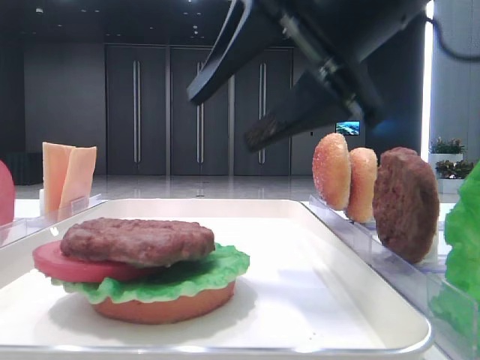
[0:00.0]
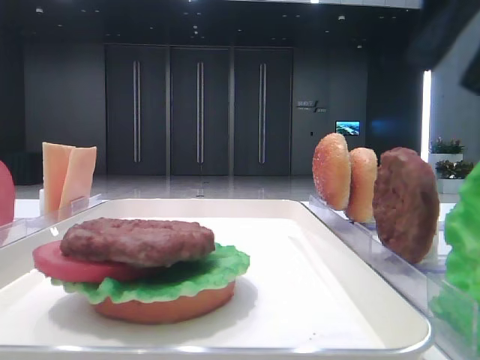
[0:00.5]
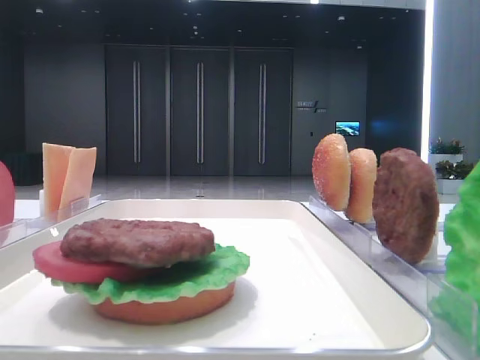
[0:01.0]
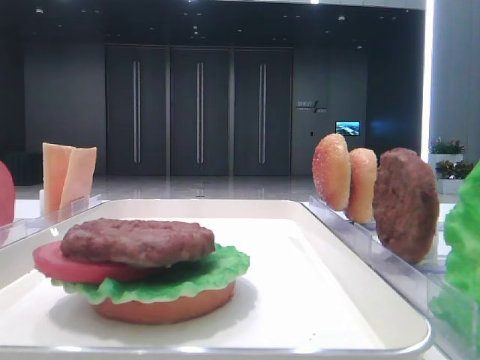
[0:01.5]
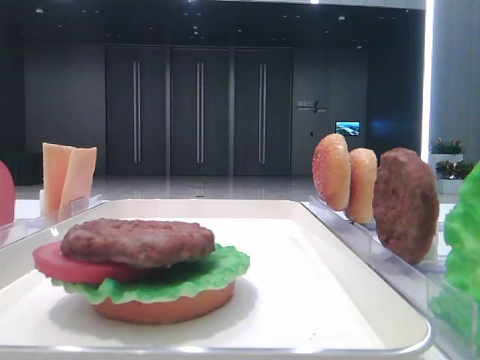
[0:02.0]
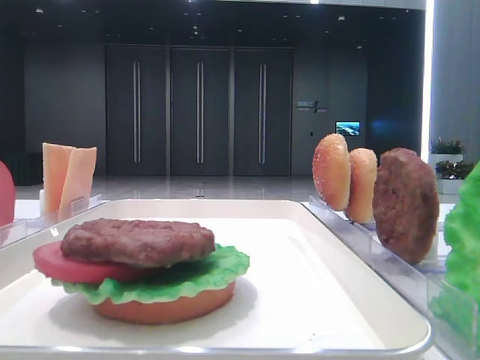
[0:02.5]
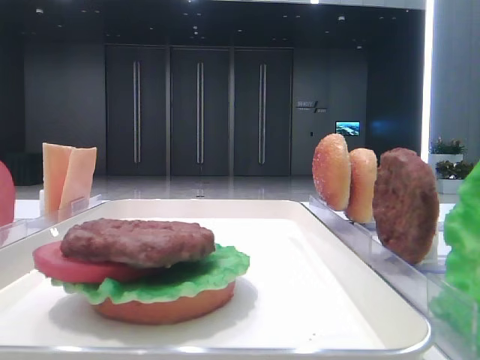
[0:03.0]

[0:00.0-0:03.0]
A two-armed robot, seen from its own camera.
0:00.0 to 0:01.5: The right gripper heads backward, to the right and upward, covering some 30 cm.

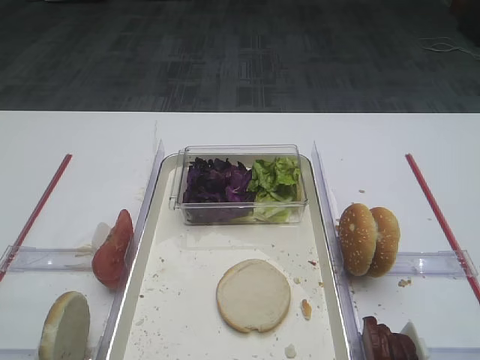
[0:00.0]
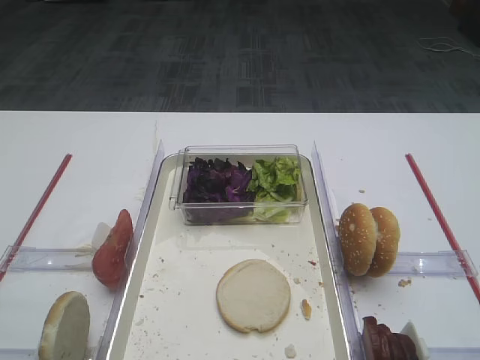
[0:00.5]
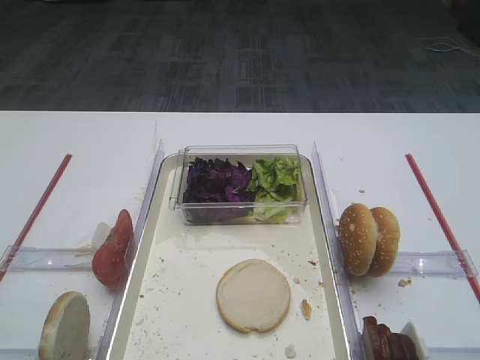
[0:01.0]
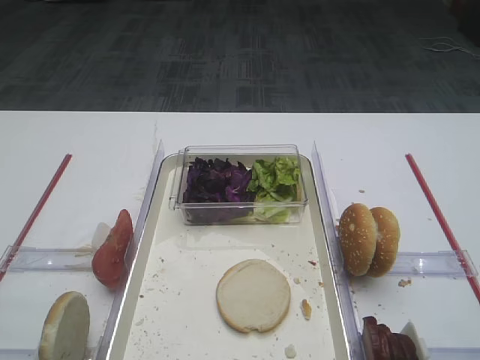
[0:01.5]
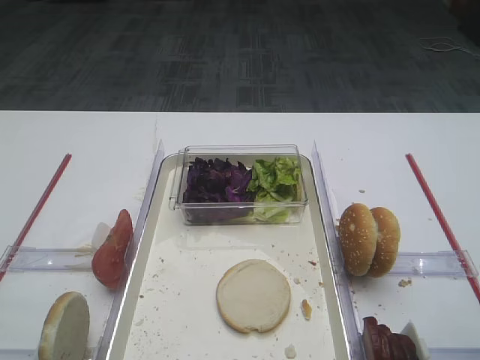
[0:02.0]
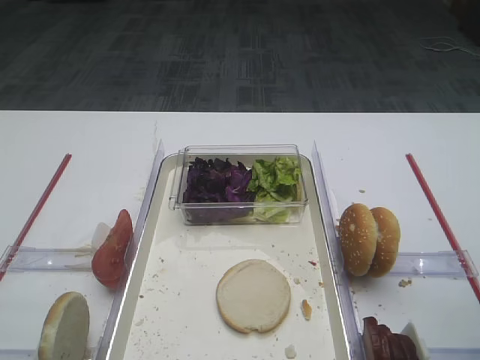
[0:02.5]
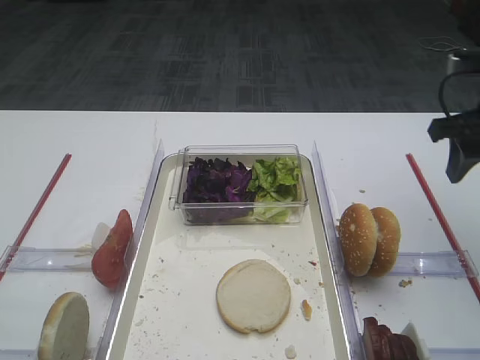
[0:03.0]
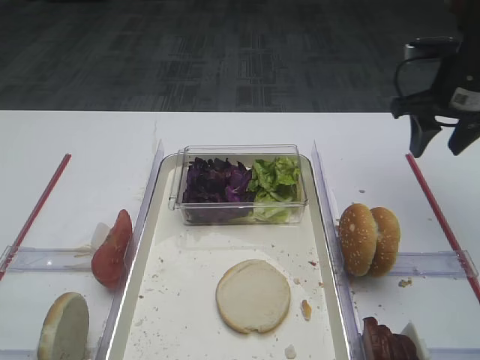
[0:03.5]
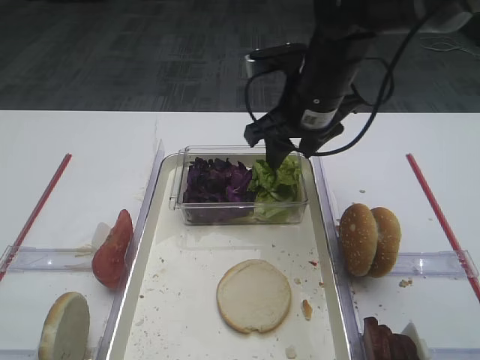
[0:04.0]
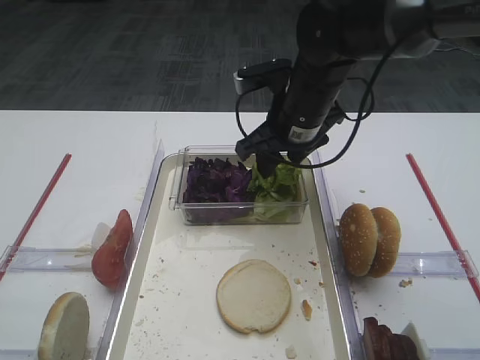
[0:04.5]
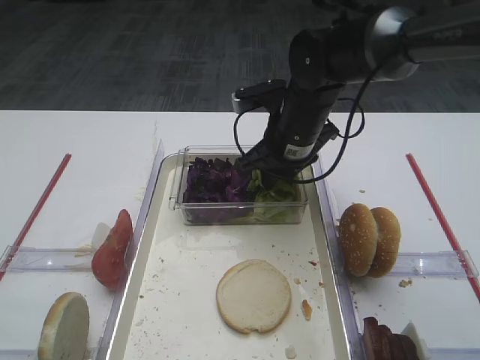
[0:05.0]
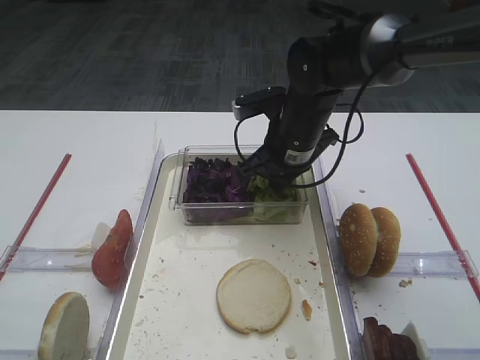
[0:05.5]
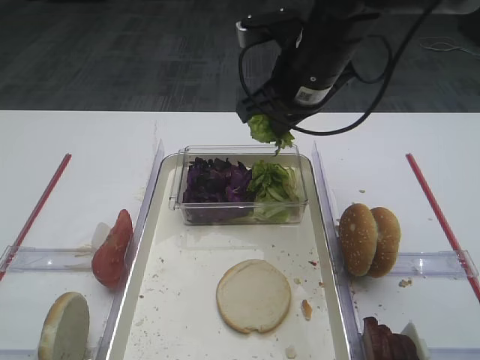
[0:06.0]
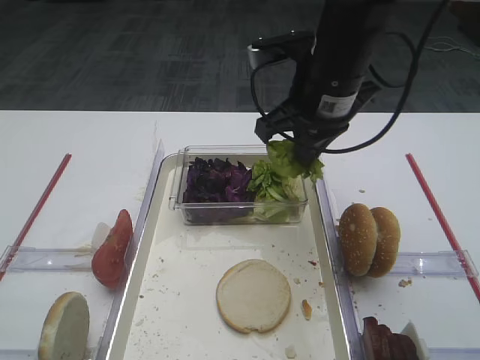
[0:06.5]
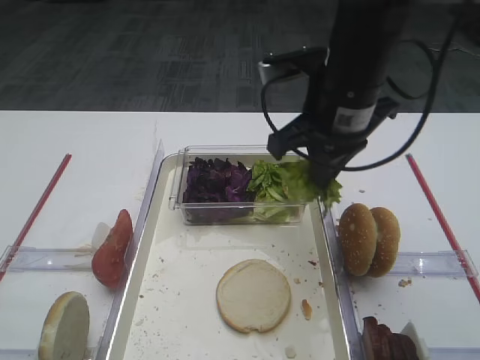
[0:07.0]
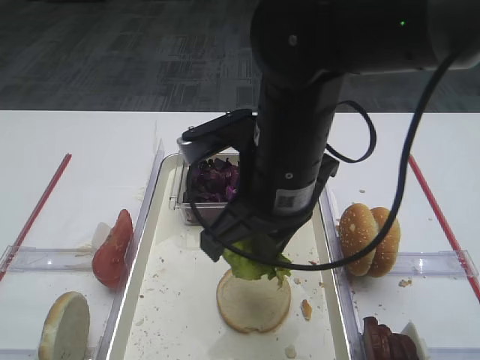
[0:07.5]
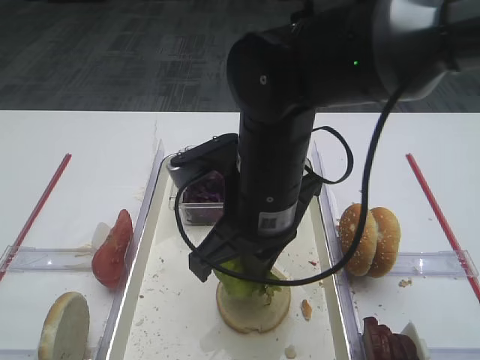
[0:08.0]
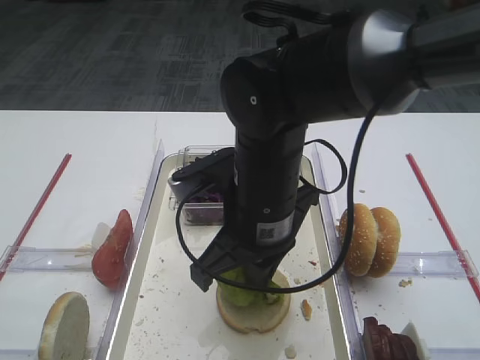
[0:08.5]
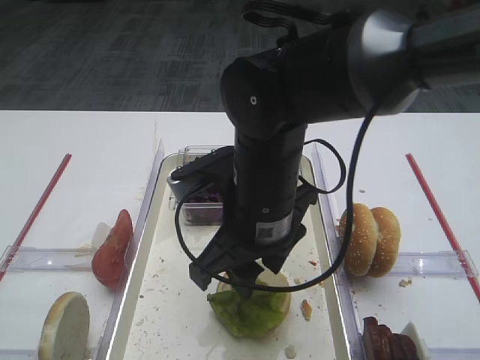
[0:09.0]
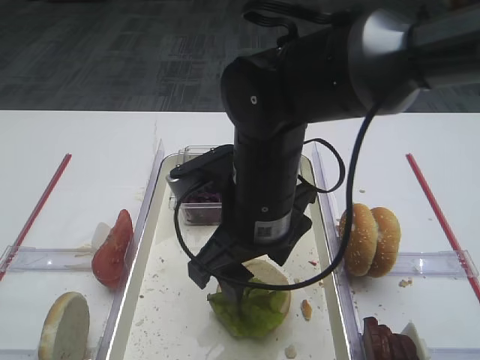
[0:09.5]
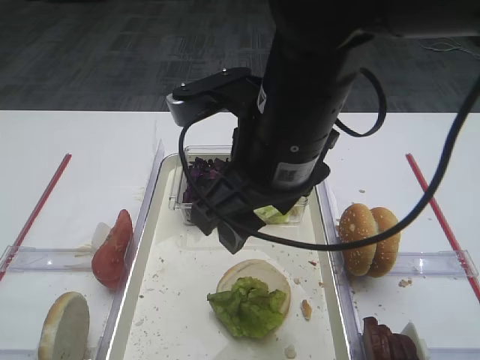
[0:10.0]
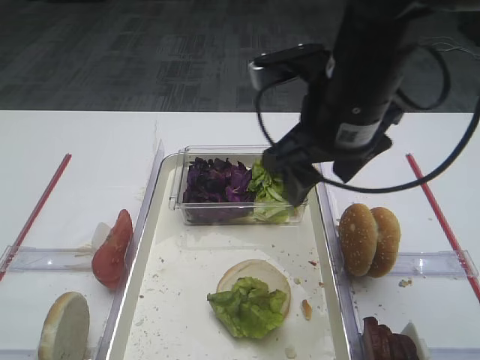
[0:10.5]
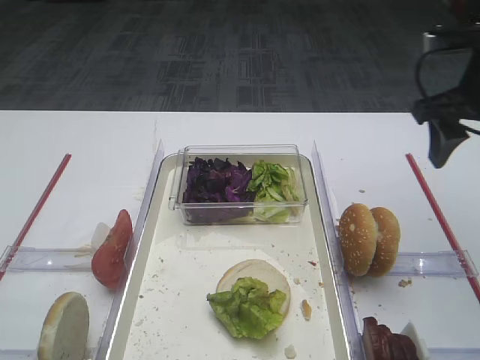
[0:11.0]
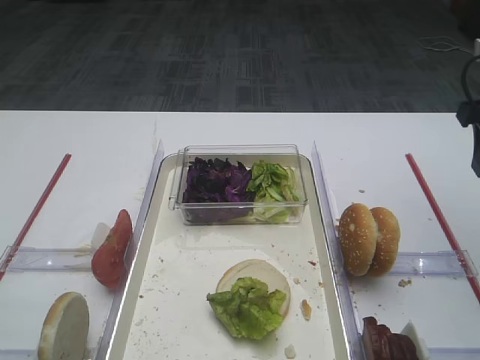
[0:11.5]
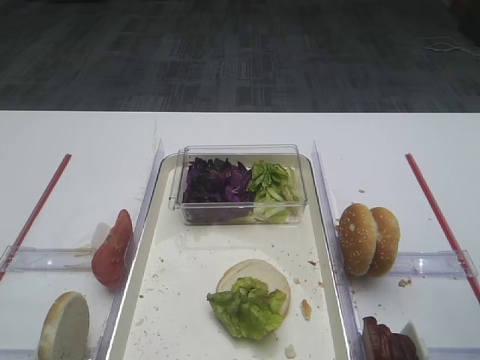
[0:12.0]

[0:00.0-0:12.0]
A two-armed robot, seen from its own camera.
Step, 0:00.0 to 0:06.0: Pick up the lettuce leaf with the right gripper.
Step, 0:07.0 to 0:09.5: Place the lettuce leaf on the bread slice with the right gripper.
0:02.0 to 0:04.0: The right gripper goes roughly 30 cm forward and to the left.
0:04.0 to 0:06.0: The right gripper travels downward and back again, some 5 cm each way, and closes its fingers.
0:06.0 to 0:08.0: The right gripper is displaced backward and to the left by approximately 15 cm.
0:08.0 to 0:10.0: The right gripper is displaced upward by some 5 cm, and opens its fingers.
0:10.0 to 0:12.0: The right gripper shifts approximately 25 cm to the right.

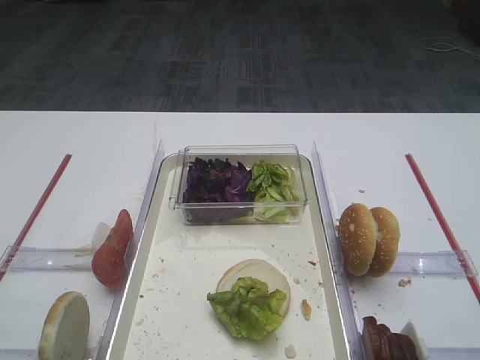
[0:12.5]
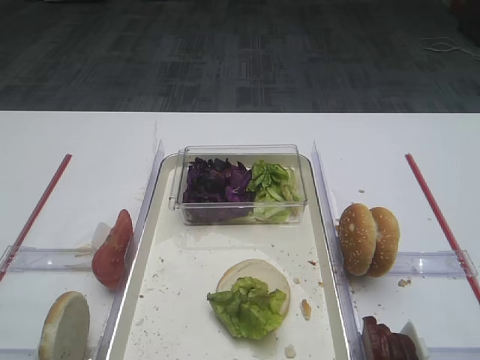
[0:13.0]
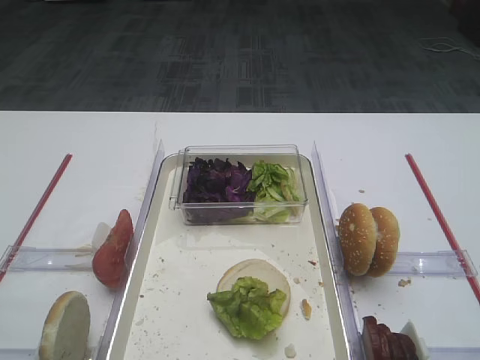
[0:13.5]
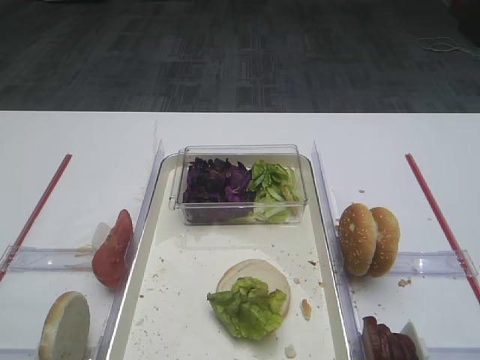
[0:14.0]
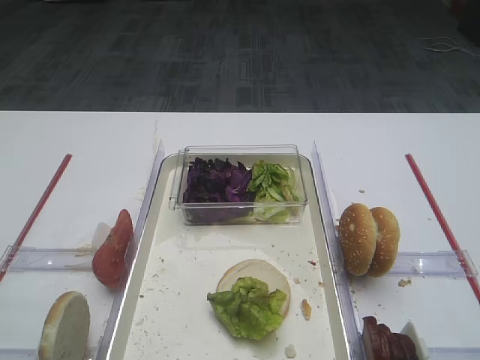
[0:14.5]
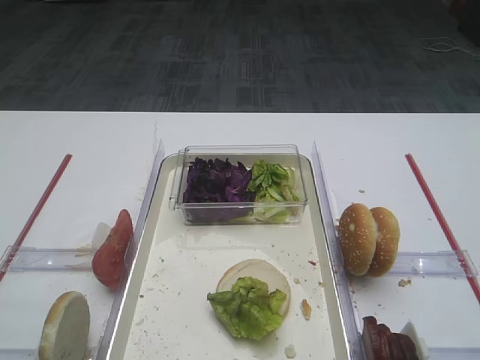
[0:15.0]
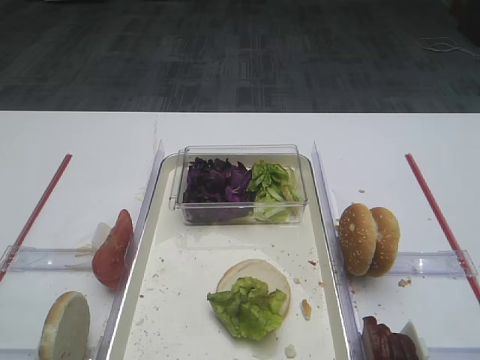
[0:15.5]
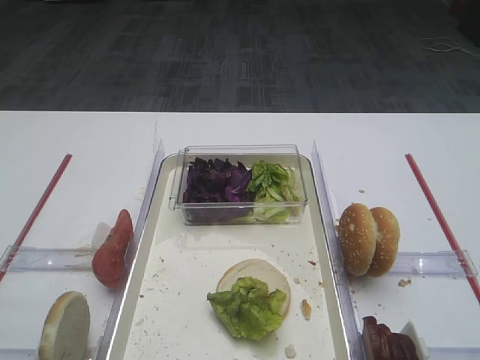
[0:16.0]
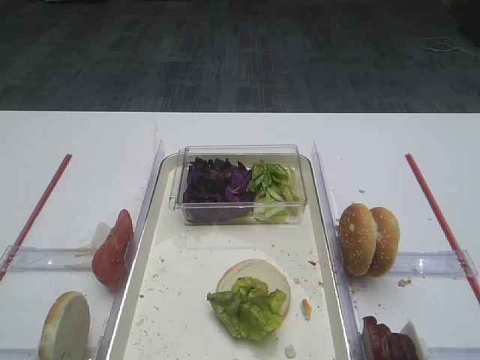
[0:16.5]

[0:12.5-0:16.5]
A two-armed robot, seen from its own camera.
0:14.5 to 0:16.5: Both grippers stay about where they are.
